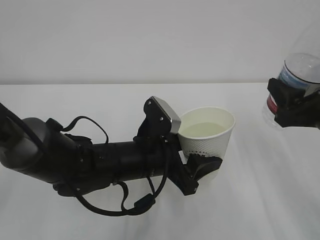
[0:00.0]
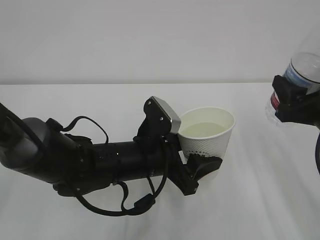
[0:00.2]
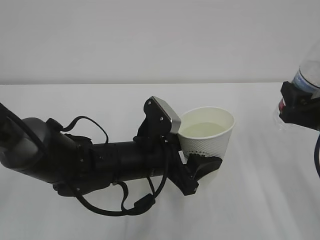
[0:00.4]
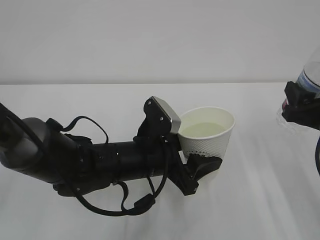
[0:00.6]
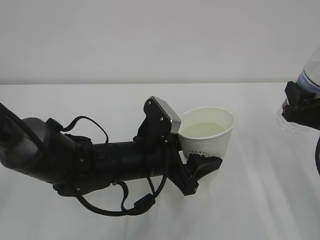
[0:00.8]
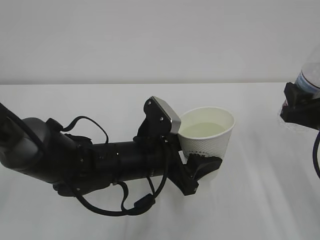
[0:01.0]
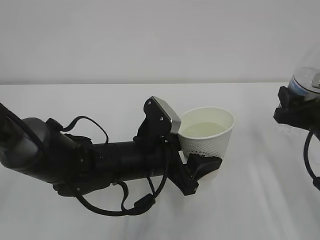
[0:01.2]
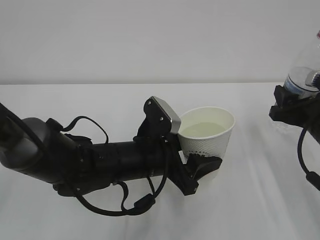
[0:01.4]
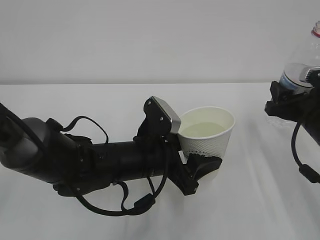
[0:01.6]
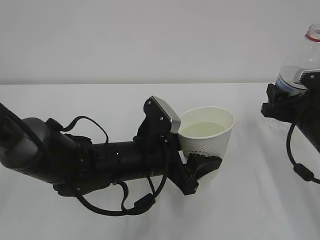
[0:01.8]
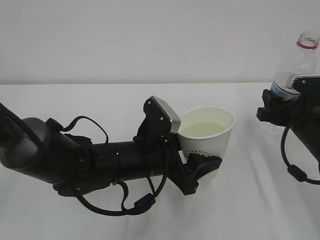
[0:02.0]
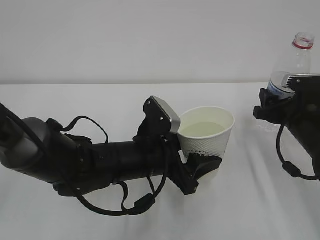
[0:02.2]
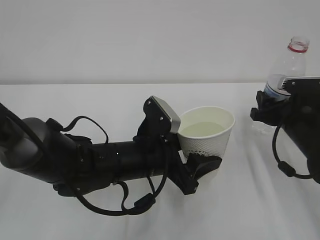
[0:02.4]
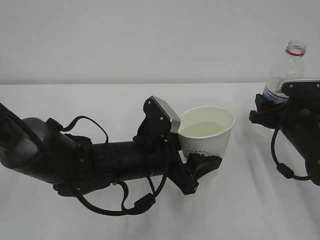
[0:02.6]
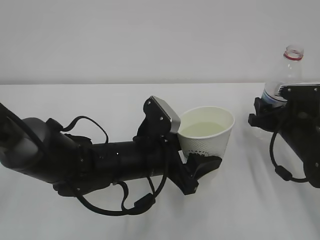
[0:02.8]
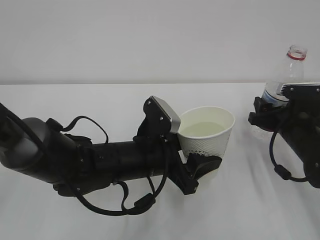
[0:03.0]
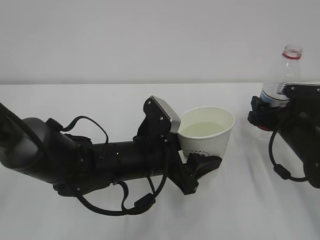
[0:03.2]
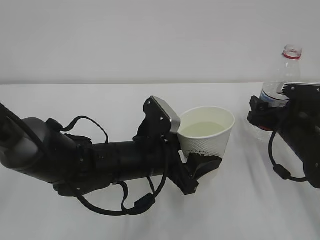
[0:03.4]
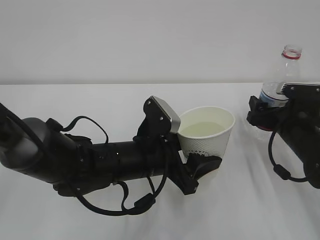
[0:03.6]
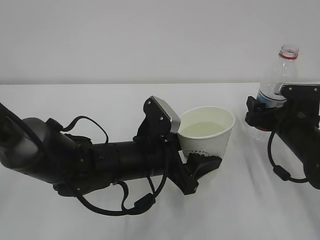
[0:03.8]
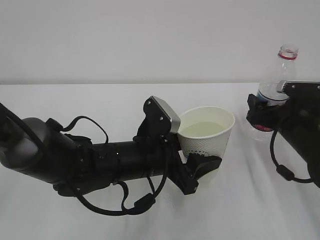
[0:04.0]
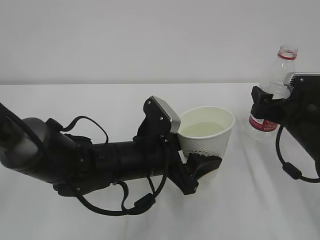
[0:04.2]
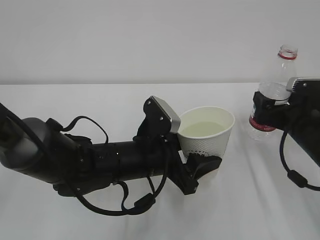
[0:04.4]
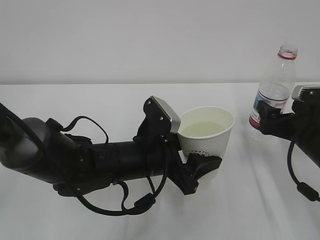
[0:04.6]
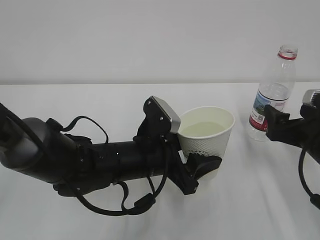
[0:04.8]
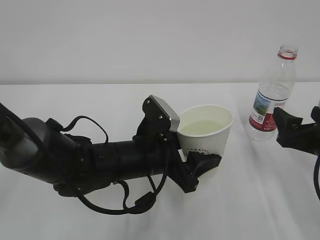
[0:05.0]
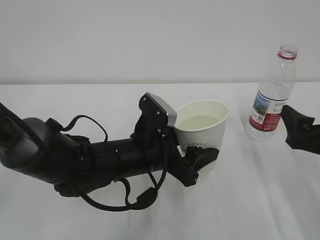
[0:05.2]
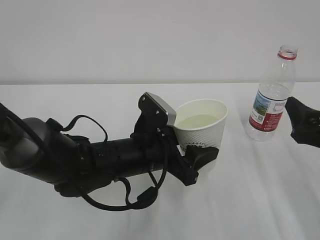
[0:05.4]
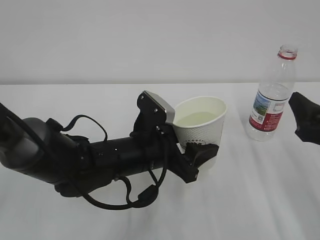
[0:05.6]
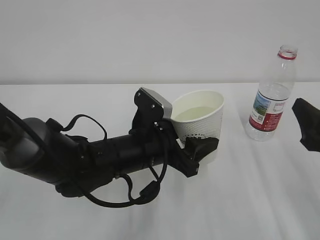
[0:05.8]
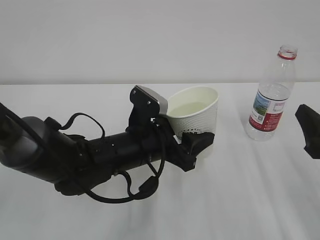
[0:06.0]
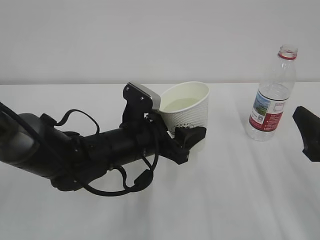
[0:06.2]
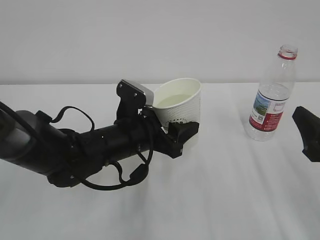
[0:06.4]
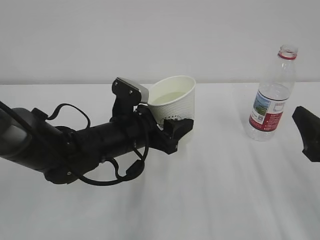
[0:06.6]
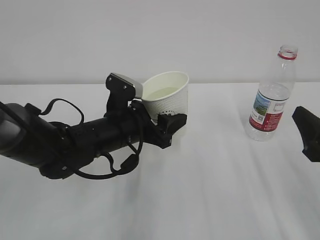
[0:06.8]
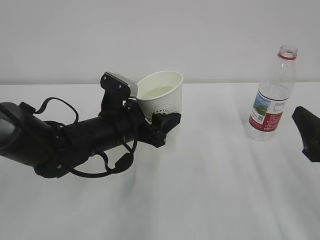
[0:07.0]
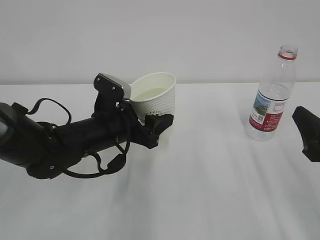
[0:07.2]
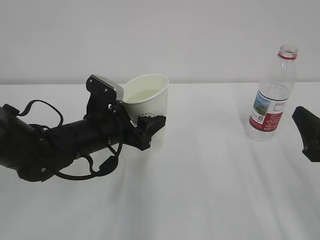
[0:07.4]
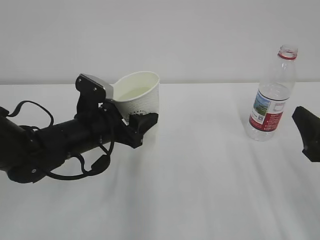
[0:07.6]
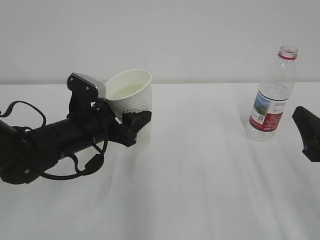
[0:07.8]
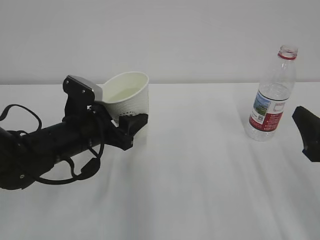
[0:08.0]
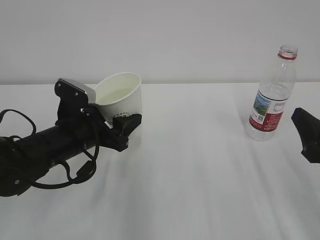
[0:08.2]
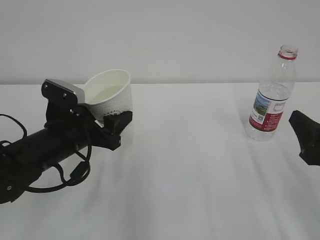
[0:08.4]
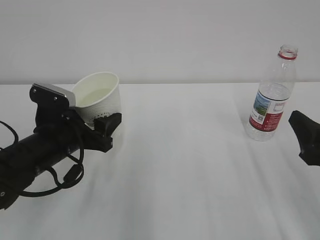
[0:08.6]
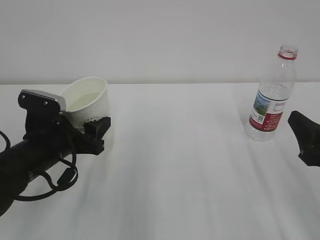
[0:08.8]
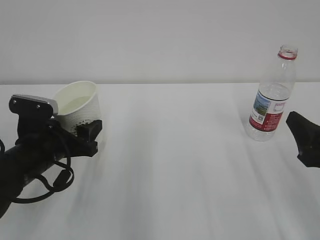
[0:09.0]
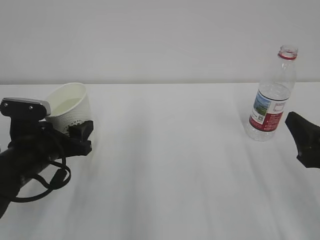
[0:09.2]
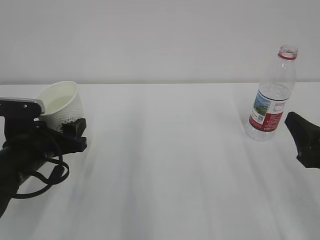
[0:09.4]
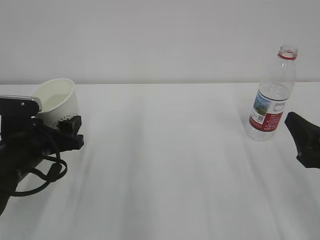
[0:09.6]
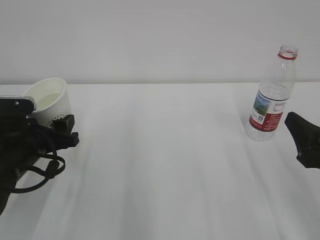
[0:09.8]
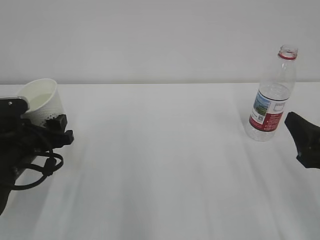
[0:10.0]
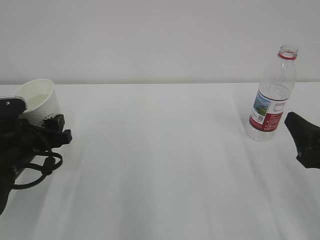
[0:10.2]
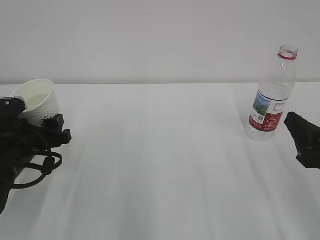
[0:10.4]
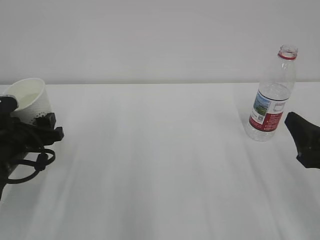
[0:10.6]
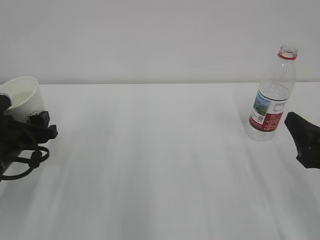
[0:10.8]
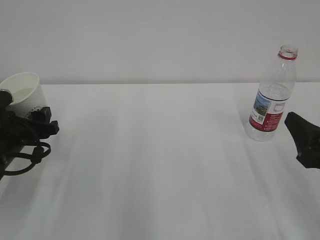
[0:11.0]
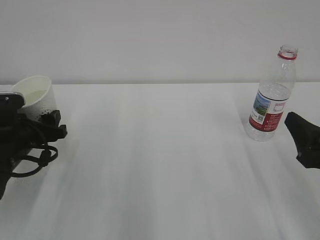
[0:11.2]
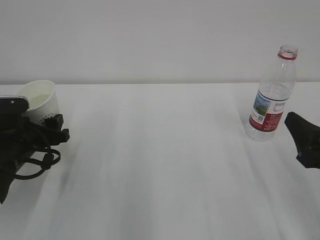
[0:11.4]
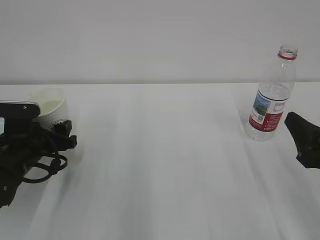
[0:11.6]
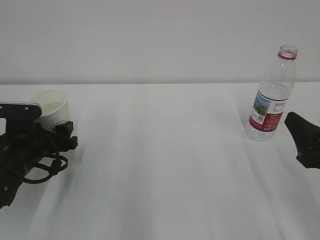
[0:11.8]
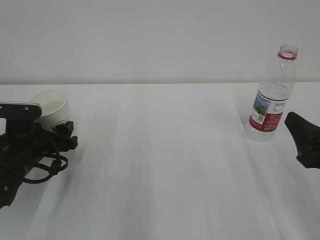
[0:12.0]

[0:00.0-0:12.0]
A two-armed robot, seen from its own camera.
0:00.0 to 0:01.6: The right gripper heads forward, covering roughly 5 cm.
0:01.6 to 0:03.0: The right gripper is displaced downward by roughly 5 cm.
0:03.0 to 0:04.4: The right gripper opens.
0:04.4 to 0:06.0: The right gripper goes some 15 cm backward and upward, and closes its fingers.
0:06.0 to 0:07.6: The left gripper is displaced to the left by about 10 cm.
0:07.6 to 0:09.0: The left gripper goes roughly 5 cm to the left.
0:10.4 to 0:12.0: The grippers move only a little.

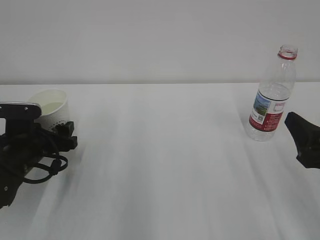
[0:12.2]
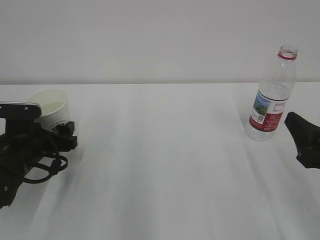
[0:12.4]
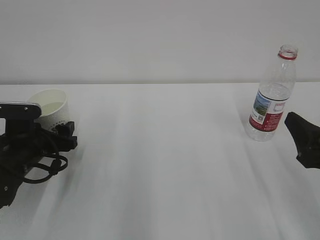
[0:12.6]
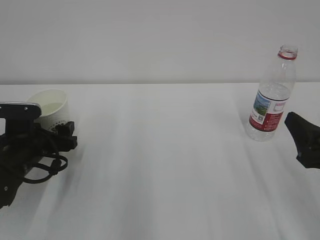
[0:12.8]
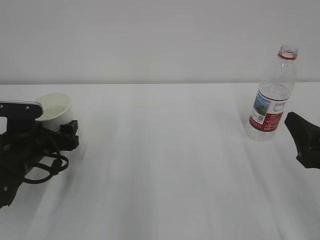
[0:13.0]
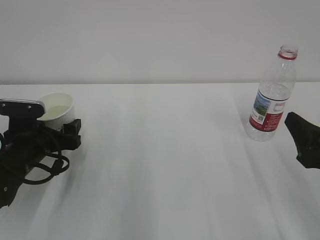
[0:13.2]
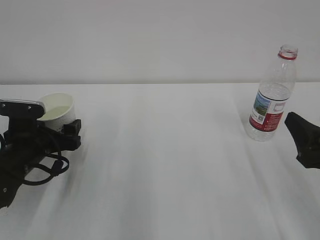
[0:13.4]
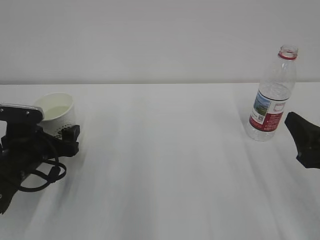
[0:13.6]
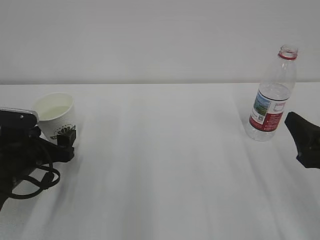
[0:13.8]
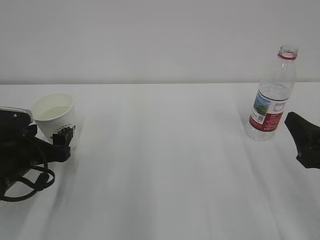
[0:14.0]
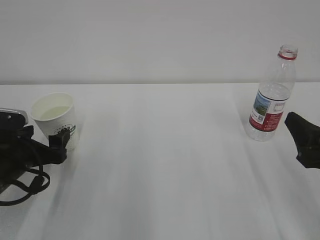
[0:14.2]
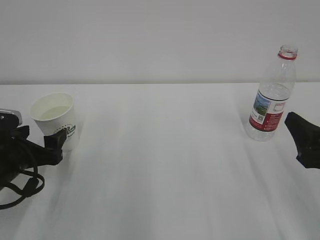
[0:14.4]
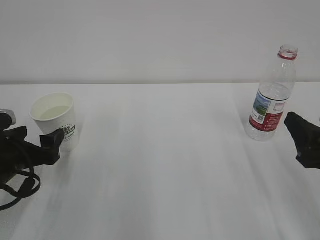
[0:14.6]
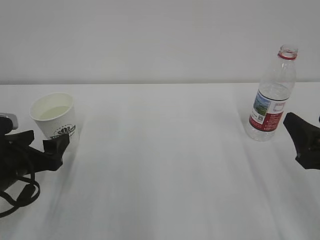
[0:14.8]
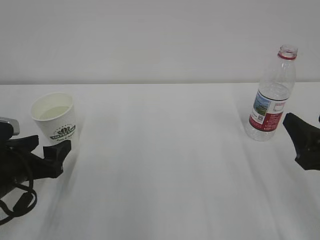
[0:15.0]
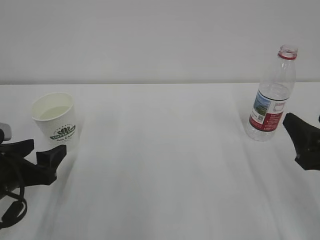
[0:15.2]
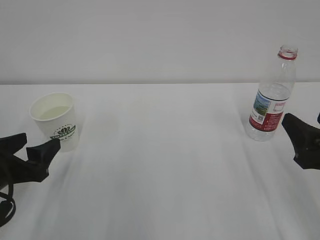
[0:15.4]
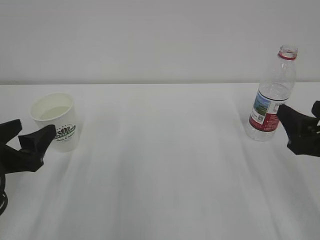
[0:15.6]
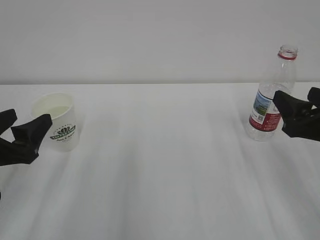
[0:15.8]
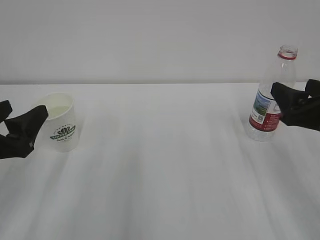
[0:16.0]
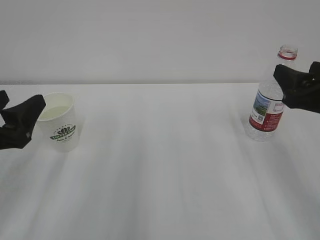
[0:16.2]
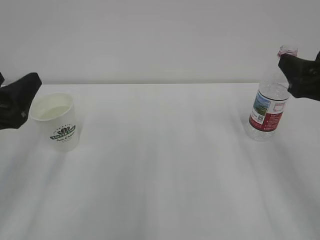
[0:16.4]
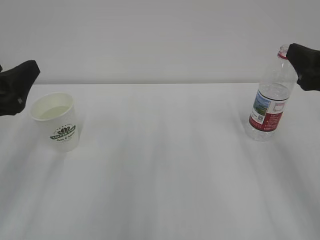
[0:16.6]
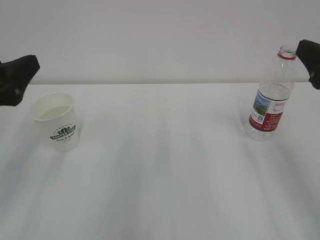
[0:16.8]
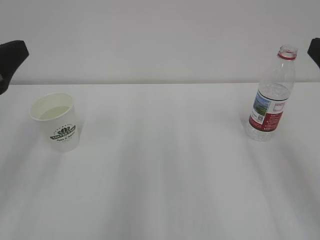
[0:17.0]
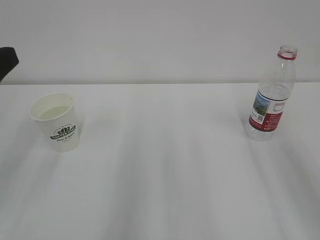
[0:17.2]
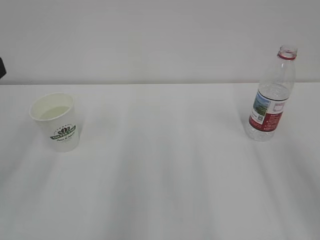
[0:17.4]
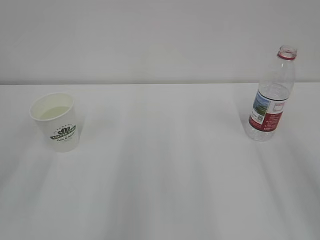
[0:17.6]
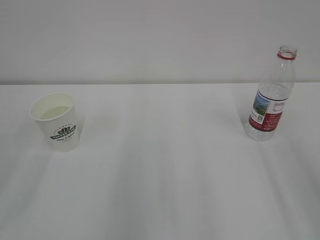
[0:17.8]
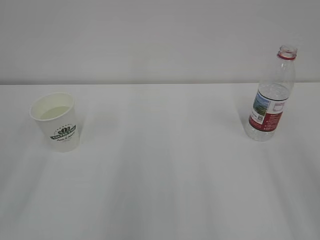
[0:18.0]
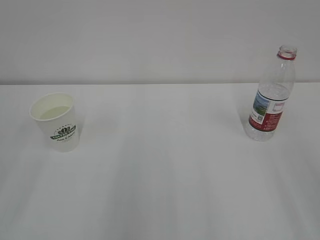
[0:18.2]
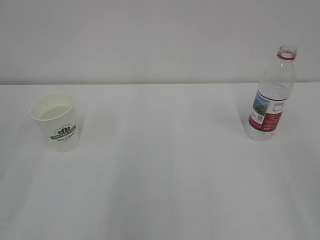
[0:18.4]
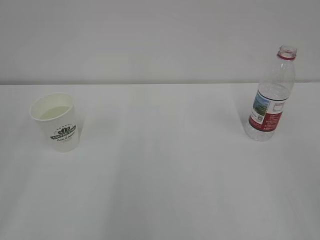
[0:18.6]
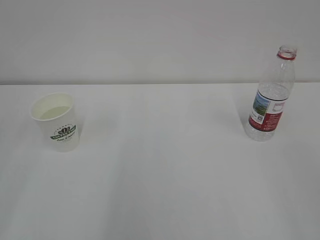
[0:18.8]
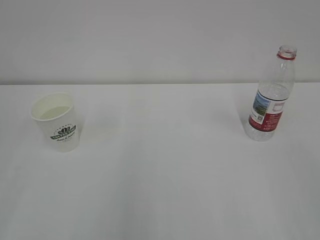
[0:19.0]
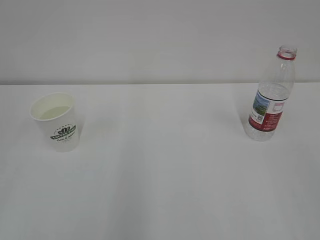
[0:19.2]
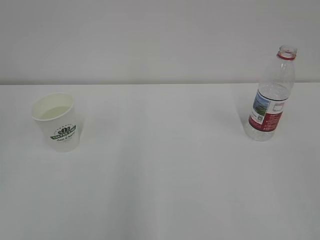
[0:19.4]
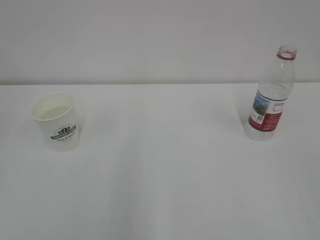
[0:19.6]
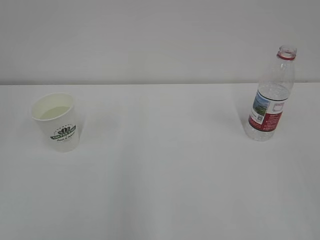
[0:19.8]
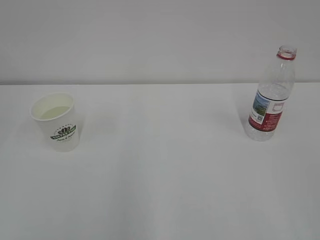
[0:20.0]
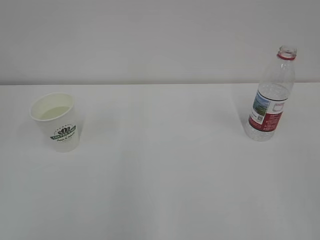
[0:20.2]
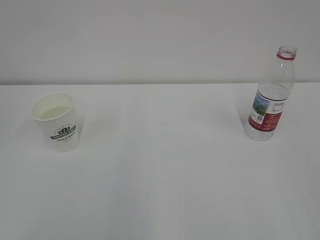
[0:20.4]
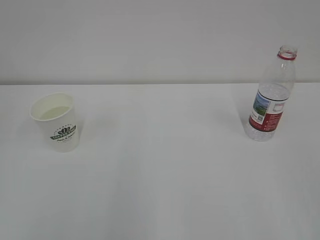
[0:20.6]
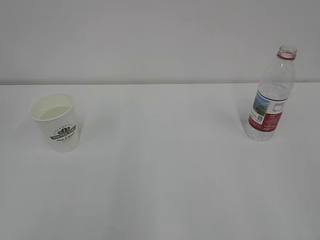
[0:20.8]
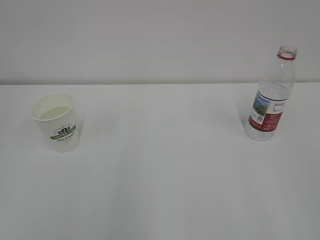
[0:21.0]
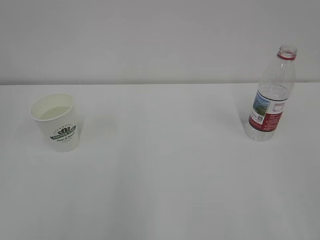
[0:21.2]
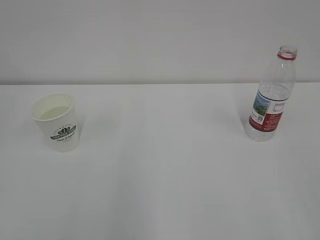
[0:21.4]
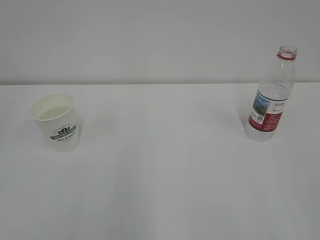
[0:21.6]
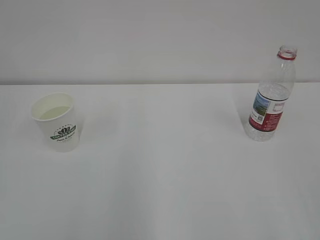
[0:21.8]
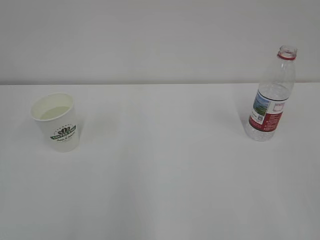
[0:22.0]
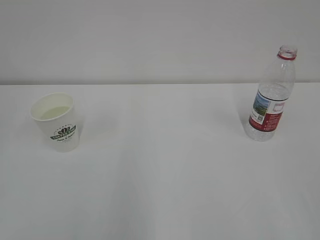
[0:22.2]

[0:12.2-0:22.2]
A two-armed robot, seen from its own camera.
0:12.2 to 0:13.6: The left gripper opens.
0:13.6 to 0:15.0: The left gripper shifts about 5 cm backward.
0:15.0 to 0:16.4: The left gripper shifts some 10 cm upward, while the right gripper heads upward and forward, covering about 10 cm.
0:16.4 to 0:18.0: The grippers both shift backward and upward by some 15 cm.
